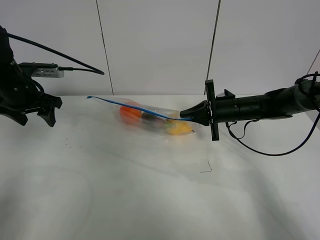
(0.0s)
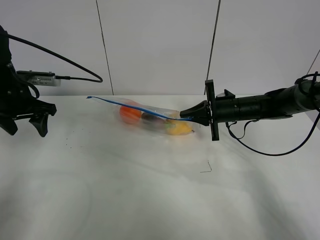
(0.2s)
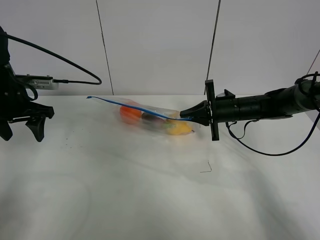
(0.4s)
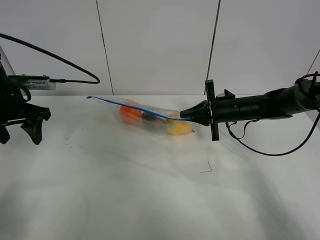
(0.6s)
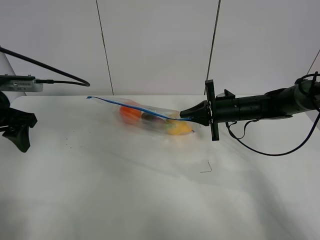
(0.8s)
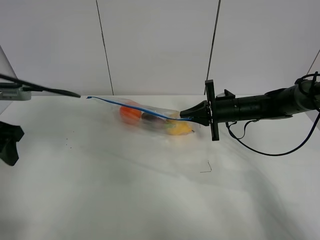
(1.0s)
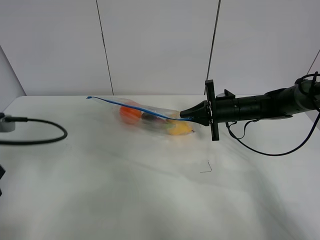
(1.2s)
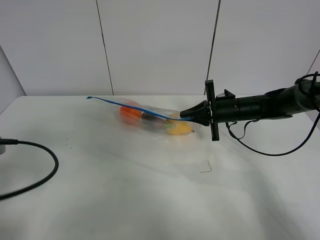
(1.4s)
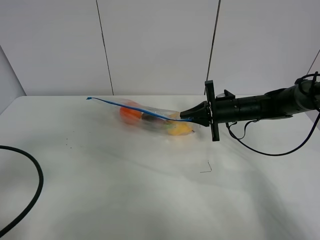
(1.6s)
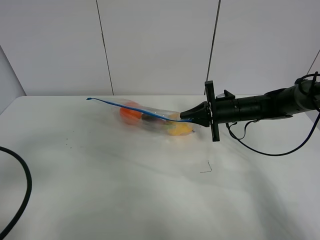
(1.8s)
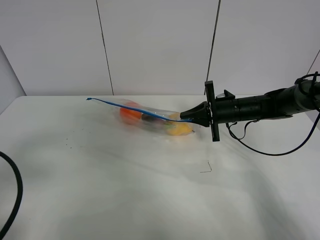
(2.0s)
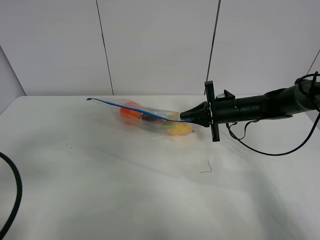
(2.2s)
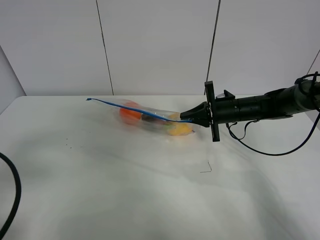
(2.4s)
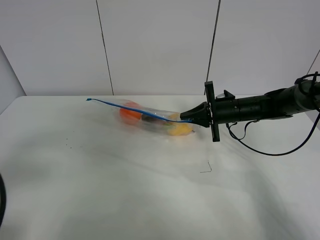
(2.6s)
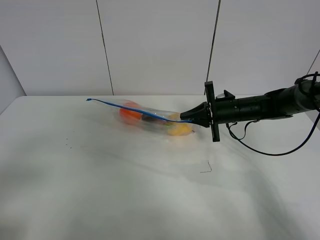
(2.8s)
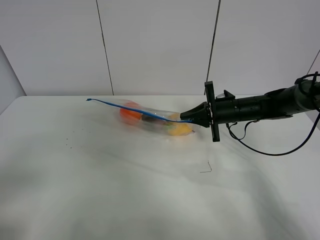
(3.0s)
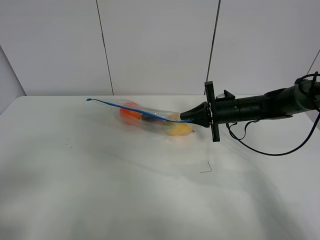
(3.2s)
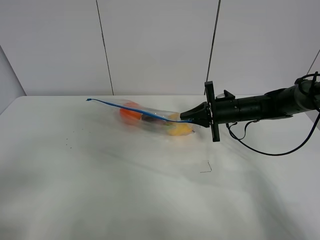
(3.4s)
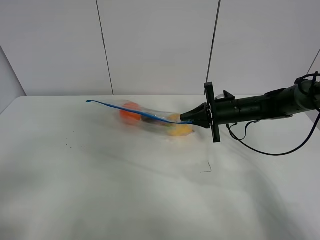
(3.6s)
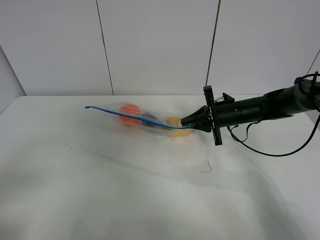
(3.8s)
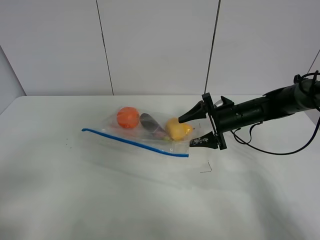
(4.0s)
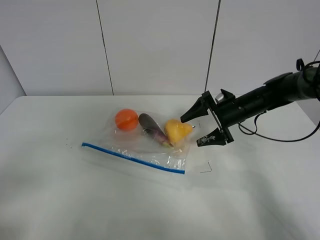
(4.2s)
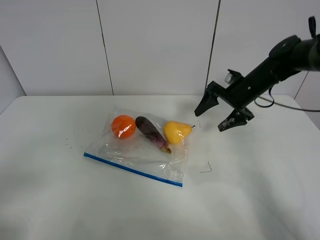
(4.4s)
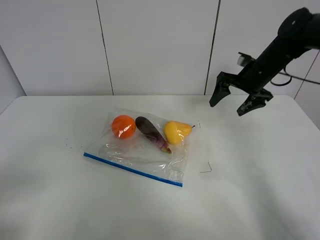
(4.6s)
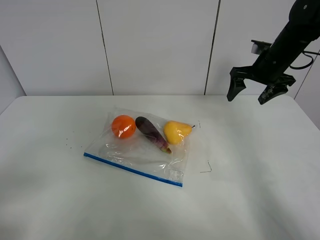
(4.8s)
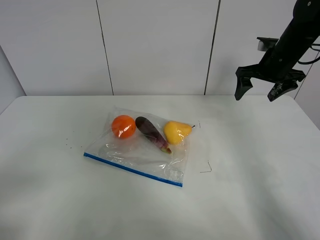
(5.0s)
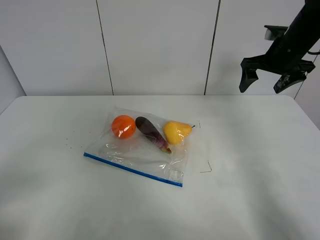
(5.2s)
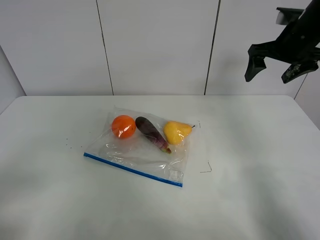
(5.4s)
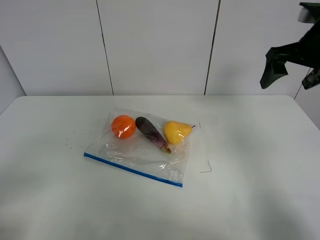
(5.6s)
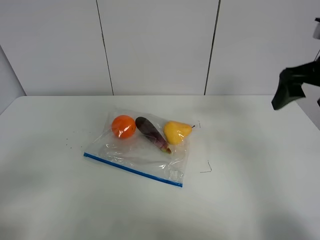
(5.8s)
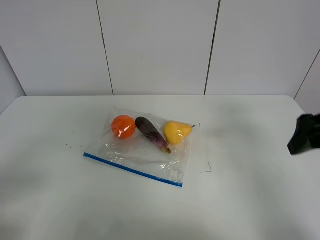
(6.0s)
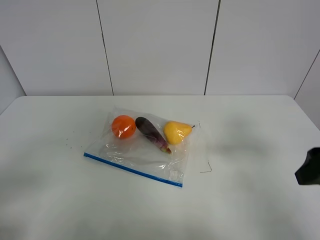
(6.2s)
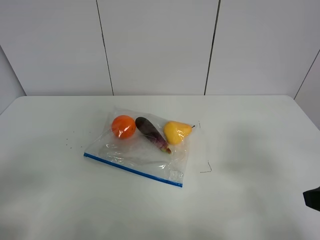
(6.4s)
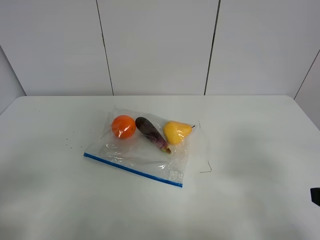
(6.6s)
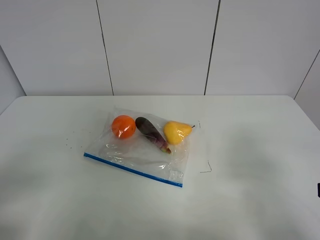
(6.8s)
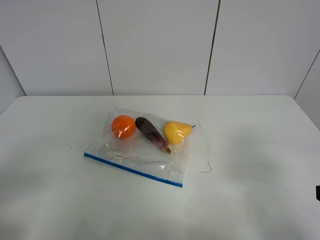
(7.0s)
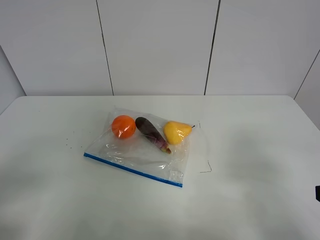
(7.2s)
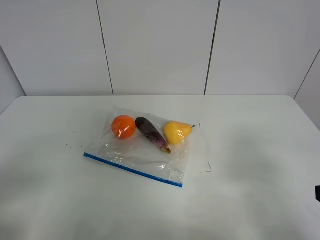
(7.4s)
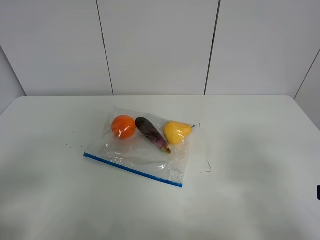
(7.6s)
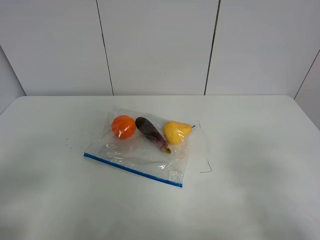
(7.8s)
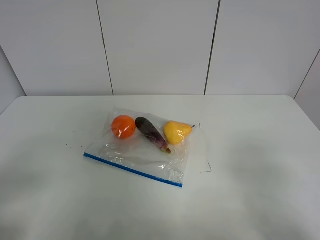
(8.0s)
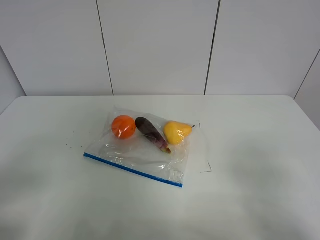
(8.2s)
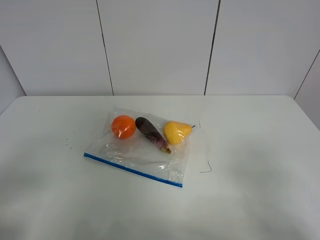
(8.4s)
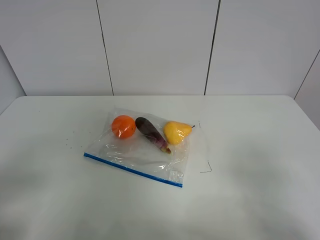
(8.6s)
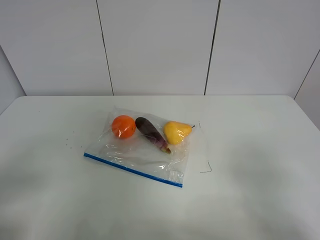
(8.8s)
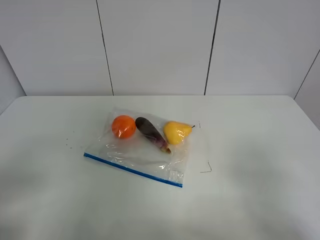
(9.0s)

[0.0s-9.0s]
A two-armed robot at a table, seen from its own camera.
0.0s to 1.6s: The left gripper shifts about 25 cm backward.
1.6s to 3.0s: The left gripper shifts approximately 10 cm backward.
3.0s to 4.4s: The right gripper moves upward, about 5 cm, and opens up.
4.4s to 6.0s: The right gripper heads backward and upward, covering roughly 25 cm.
6.0s to 7.6s: The right gripper heads backward, covering approximately 15 cm.

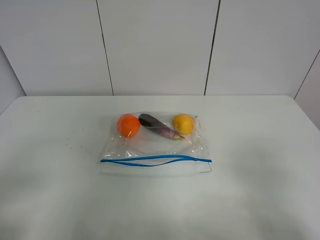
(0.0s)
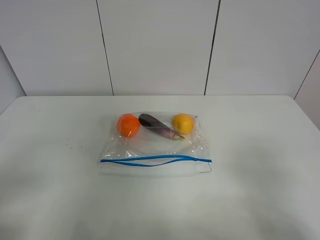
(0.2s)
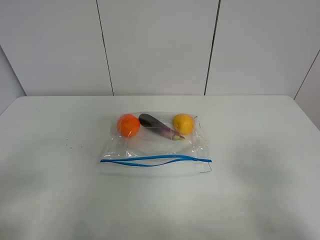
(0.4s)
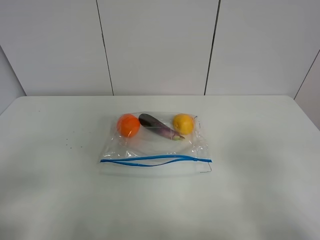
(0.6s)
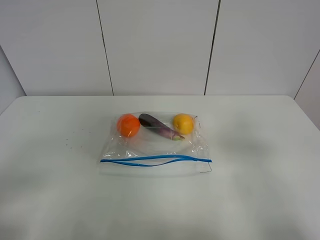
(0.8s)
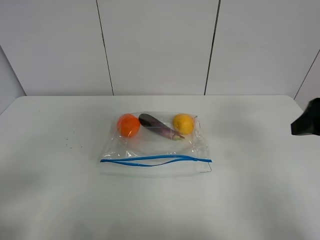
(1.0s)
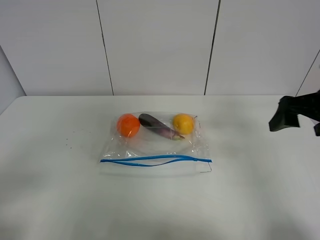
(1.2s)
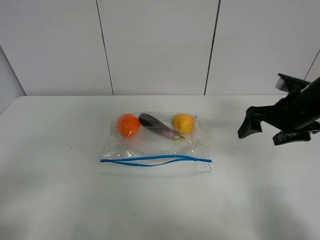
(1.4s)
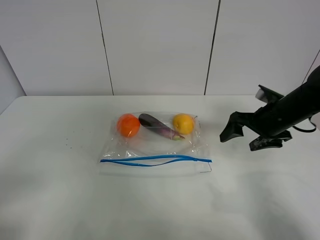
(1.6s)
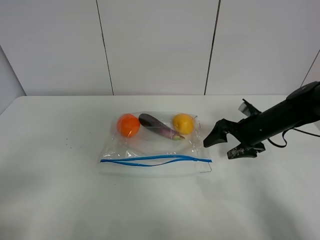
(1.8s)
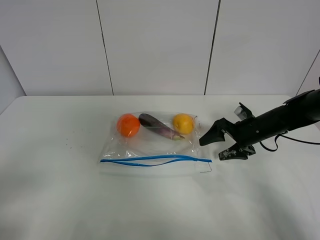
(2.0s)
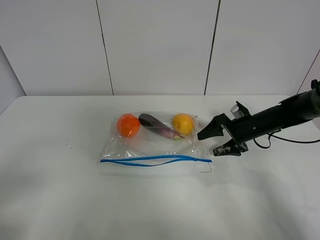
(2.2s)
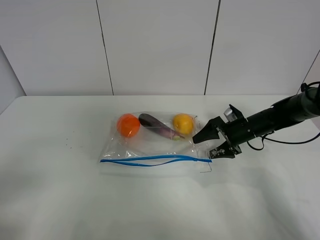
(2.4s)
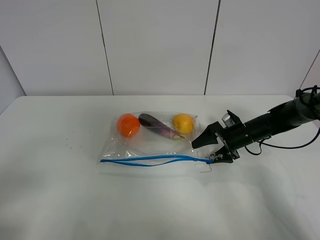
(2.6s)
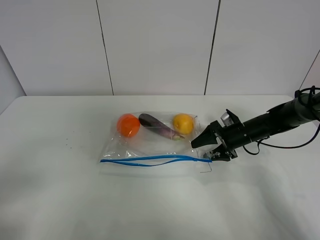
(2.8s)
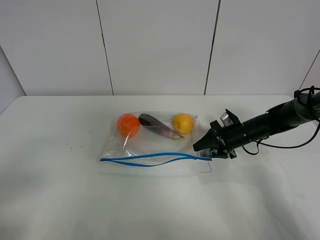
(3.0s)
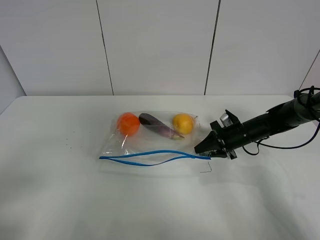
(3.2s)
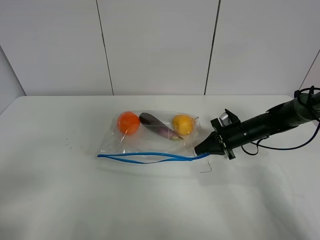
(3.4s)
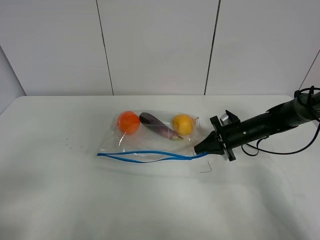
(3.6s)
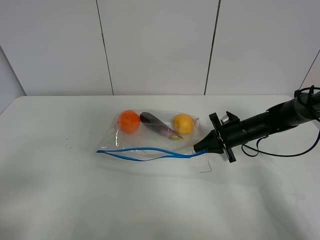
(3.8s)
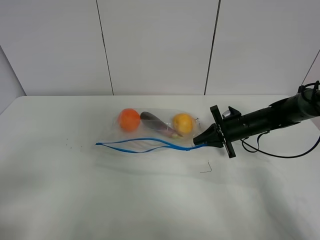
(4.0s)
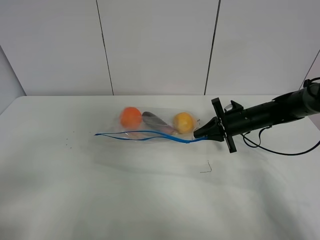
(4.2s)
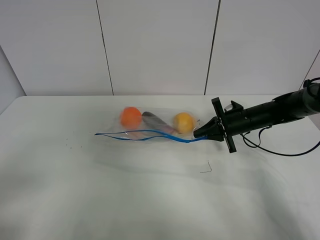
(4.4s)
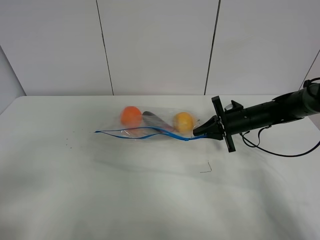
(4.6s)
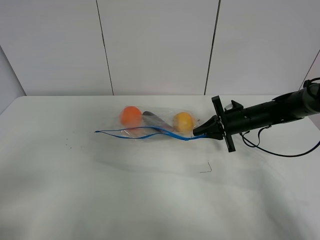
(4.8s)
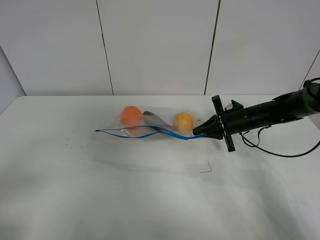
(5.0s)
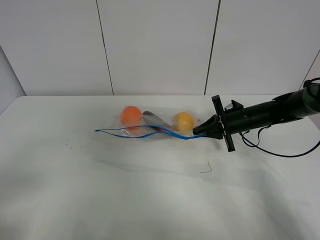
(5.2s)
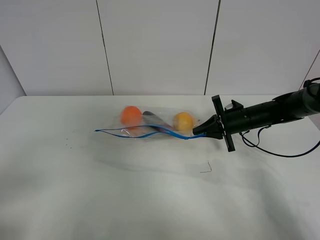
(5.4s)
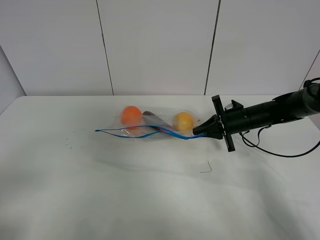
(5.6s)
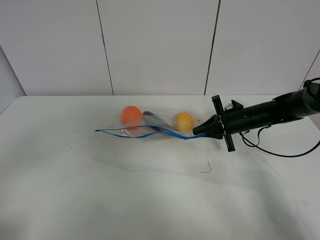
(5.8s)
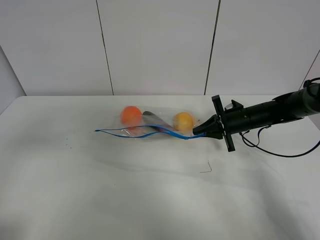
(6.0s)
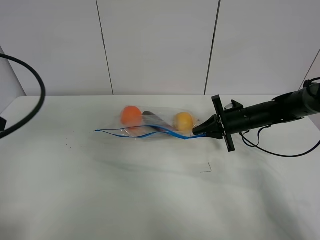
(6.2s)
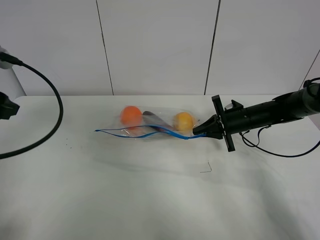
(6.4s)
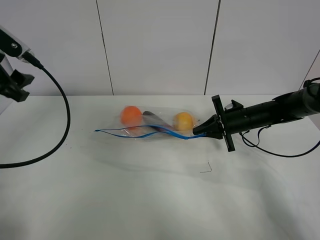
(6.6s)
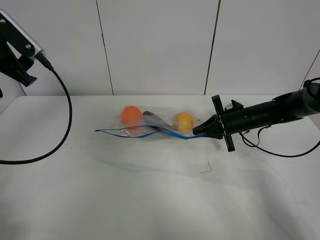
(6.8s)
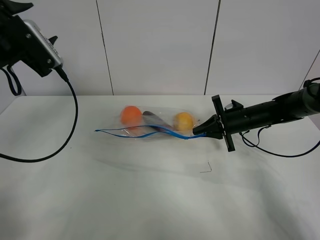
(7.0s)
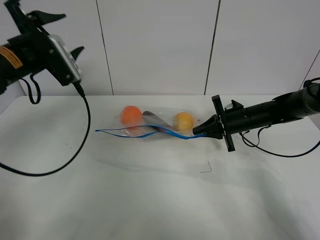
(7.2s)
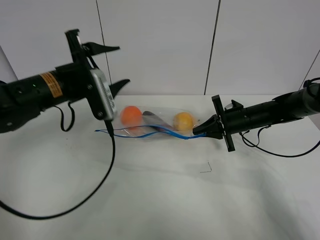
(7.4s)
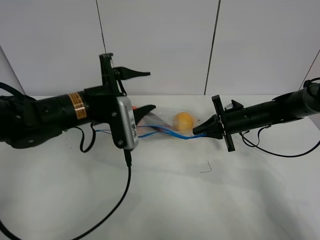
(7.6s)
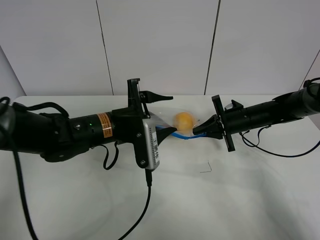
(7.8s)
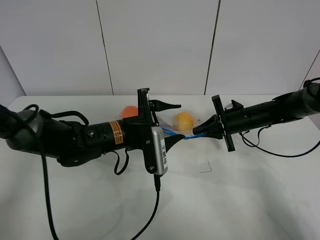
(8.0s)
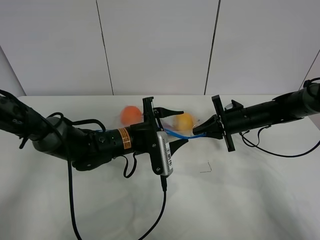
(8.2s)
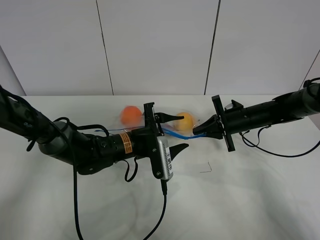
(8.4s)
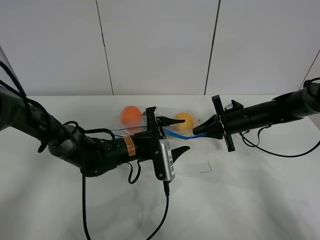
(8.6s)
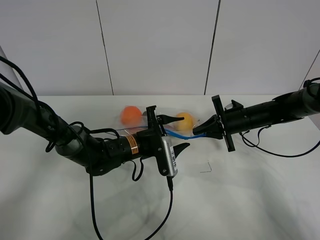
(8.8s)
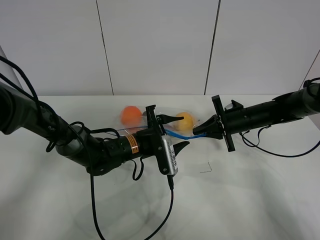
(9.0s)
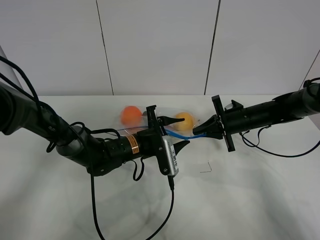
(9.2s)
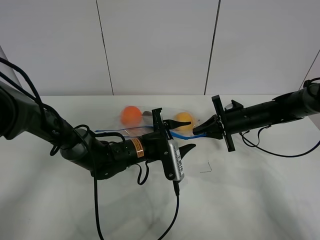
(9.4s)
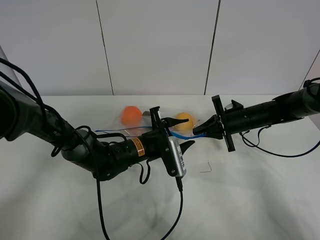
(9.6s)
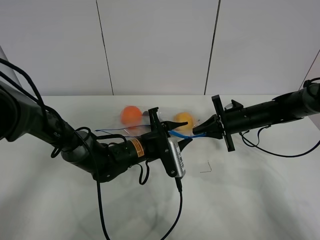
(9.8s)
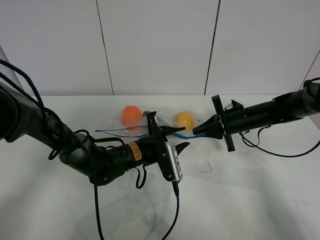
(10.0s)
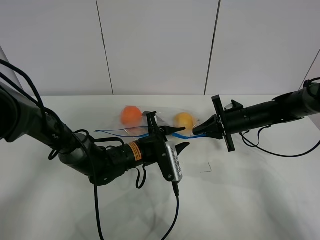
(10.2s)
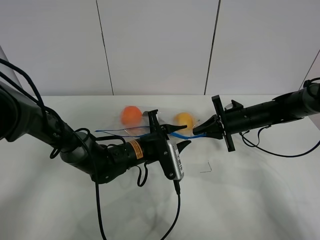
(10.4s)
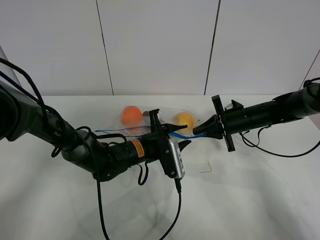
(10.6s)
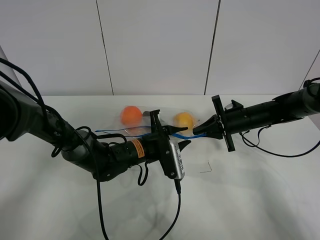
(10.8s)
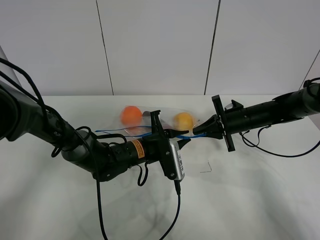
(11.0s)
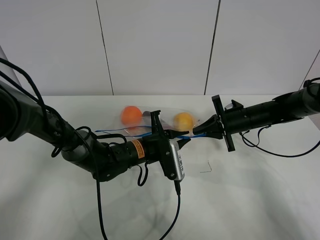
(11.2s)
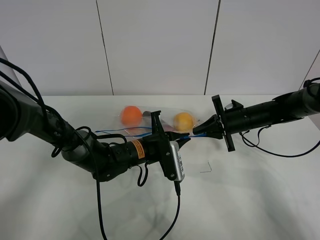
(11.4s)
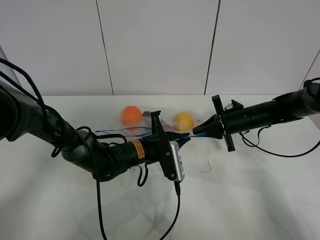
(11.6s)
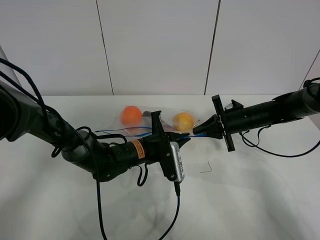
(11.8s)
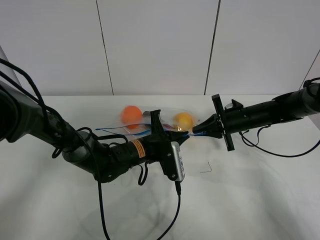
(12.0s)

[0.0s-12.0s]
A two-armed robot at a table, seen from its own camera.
Step, 0.0s to 3.2s: Grasp the fruit bag with right gripper.
Step, 3.4s to 5.2s: Lift the fruit bag with your right gripper.
0.0s to 1.6s: The right gripper goes approximately 30 cm forward.
1.6s to 3.0s: The right gripper travels downward and forward by roughly 10 cm, and closes its fingers.
3.0s to 4.4s: The right gripper closes up.
4.4s to 6.0s: The left gripper travels forward and upward by approximately 10 cm.
6.0s to 7.6s: The left gripper travels to the right, forward and downward by approximately 25 cm.
7.6s to 9.0s: The left gripper is displaced downward and to the right by about 15 cm.
9.0s to 10.4s: The grippers make only small movements.
10.4s to 12.0s: The left gripper closes up.

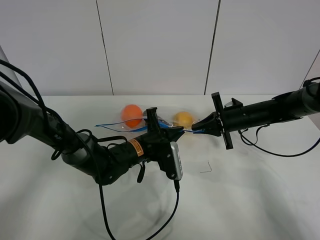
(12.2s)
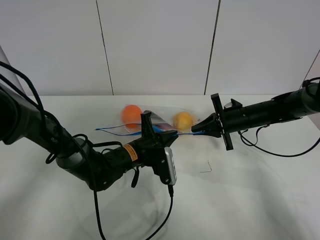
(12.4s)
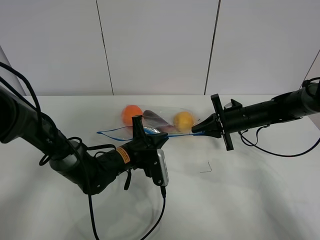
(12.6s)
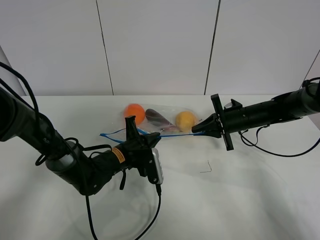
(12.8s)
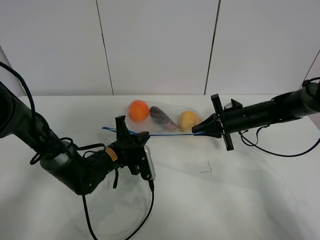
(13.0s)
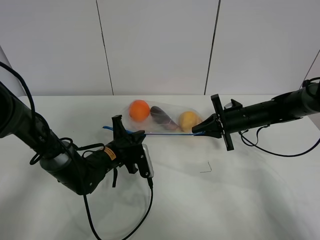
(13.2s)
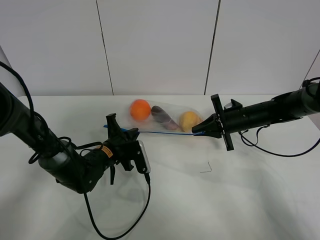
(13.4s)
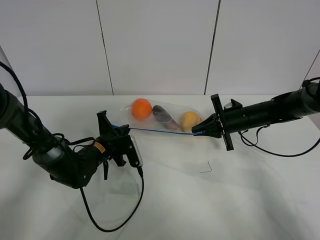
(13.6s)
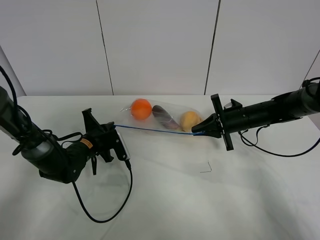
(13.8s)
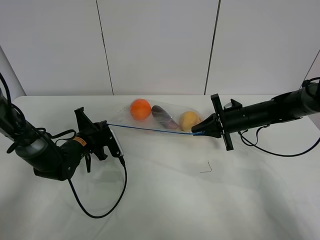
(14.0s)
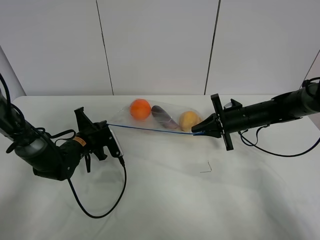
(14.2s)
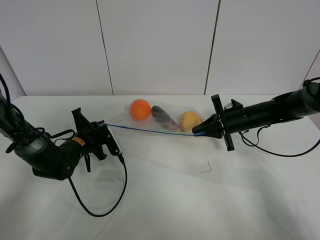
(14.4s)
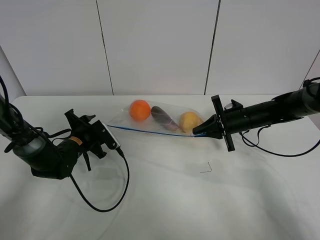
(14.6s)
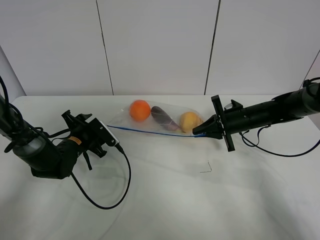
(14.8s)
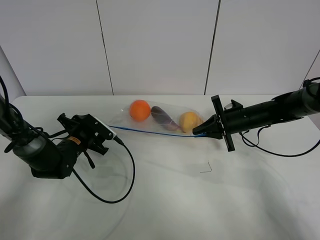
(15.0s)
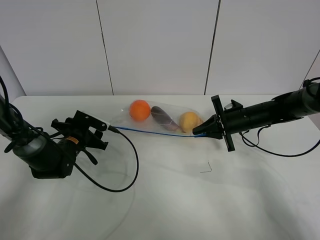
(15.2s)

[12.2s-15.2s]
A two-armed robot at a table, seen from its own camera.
Step, 12.2s to 15.2s: Pull the fruit bag with left gripper.
12.2s to 13.8s: The left gripper goes roughly 15 cm to the left.
13.8s to 15.2s: The left gripper opens its fingers.
